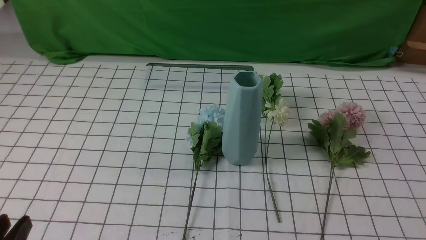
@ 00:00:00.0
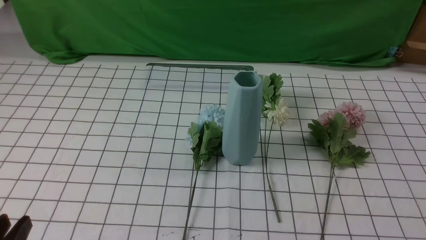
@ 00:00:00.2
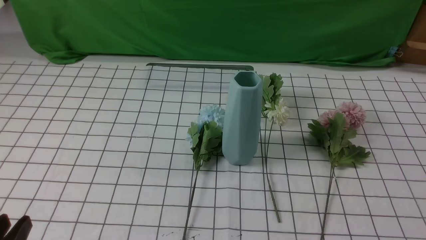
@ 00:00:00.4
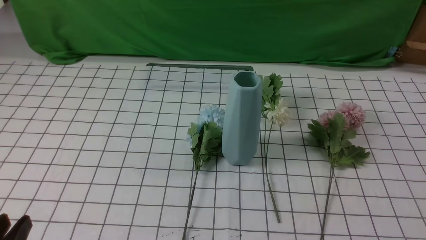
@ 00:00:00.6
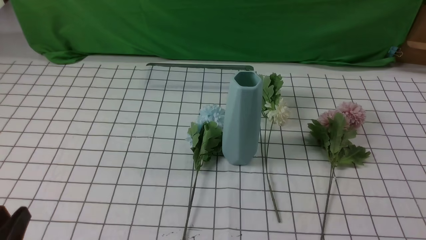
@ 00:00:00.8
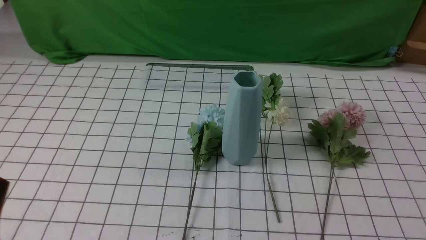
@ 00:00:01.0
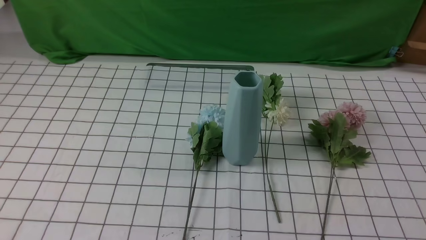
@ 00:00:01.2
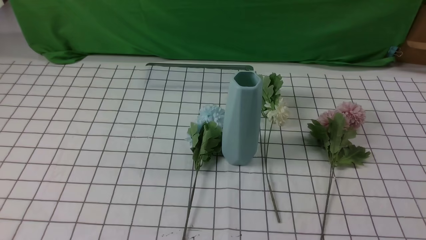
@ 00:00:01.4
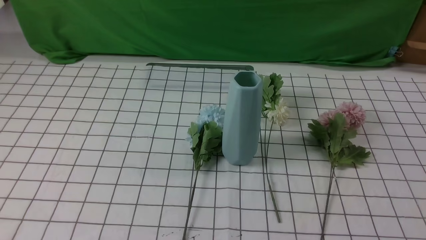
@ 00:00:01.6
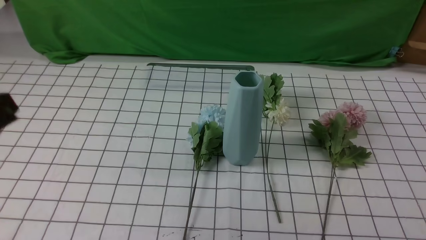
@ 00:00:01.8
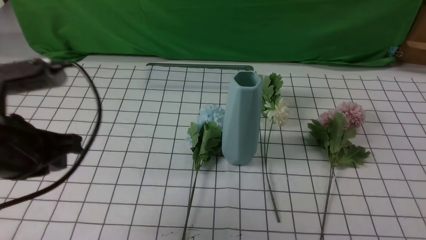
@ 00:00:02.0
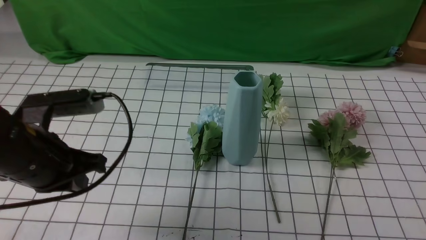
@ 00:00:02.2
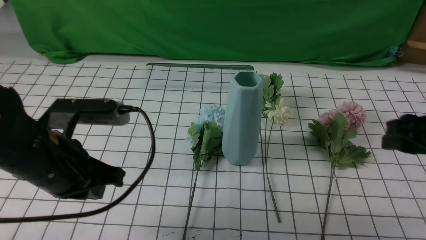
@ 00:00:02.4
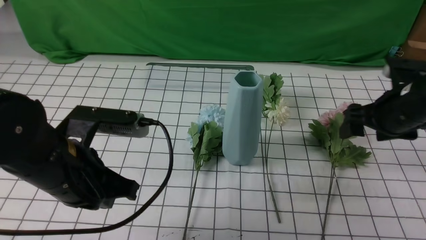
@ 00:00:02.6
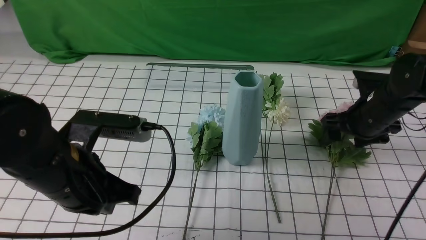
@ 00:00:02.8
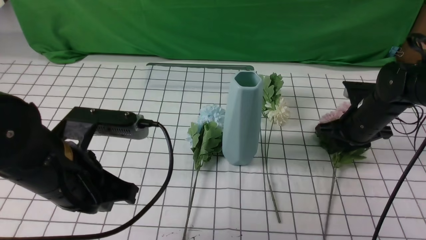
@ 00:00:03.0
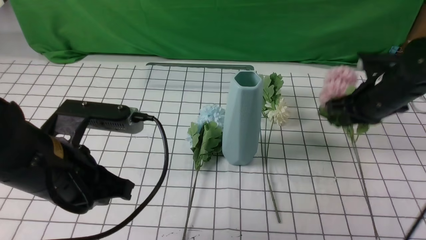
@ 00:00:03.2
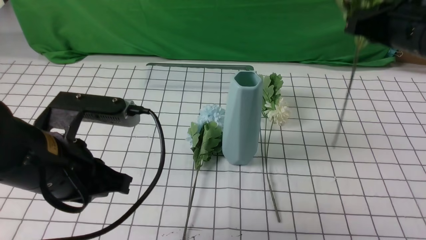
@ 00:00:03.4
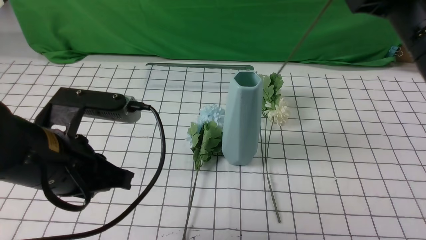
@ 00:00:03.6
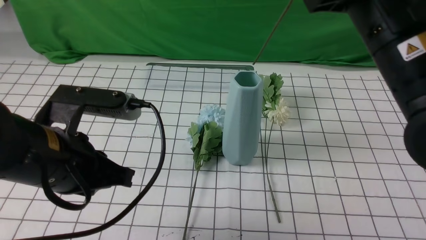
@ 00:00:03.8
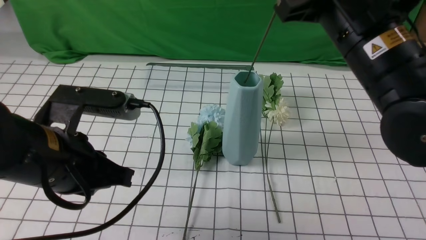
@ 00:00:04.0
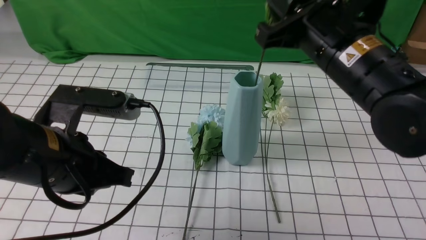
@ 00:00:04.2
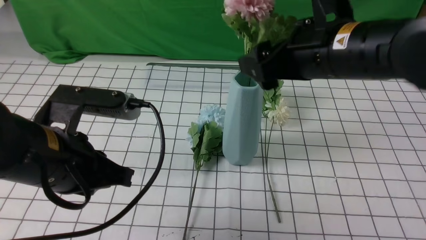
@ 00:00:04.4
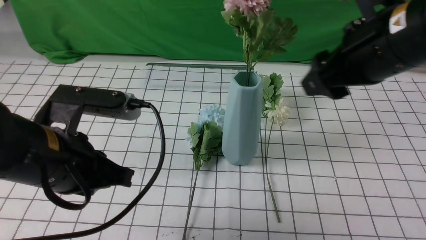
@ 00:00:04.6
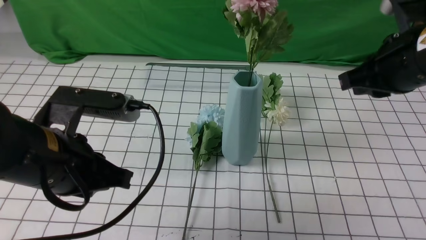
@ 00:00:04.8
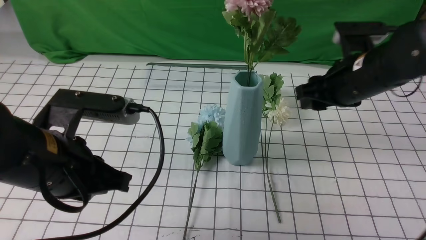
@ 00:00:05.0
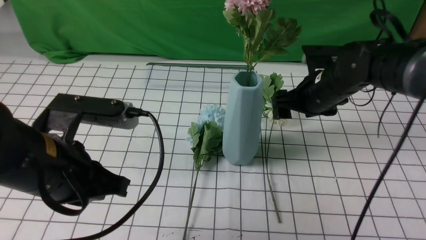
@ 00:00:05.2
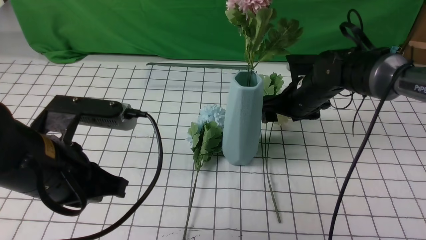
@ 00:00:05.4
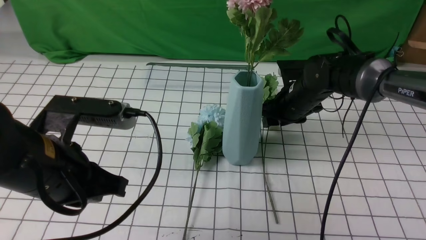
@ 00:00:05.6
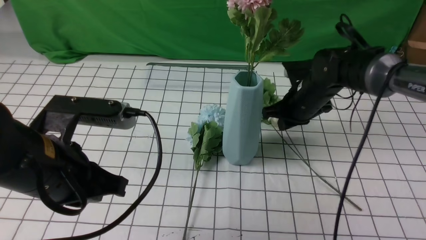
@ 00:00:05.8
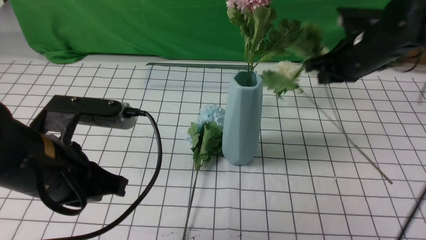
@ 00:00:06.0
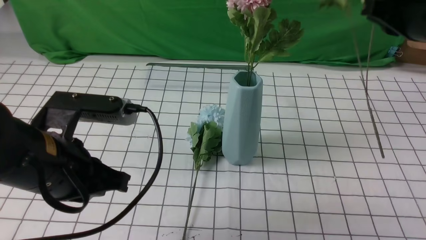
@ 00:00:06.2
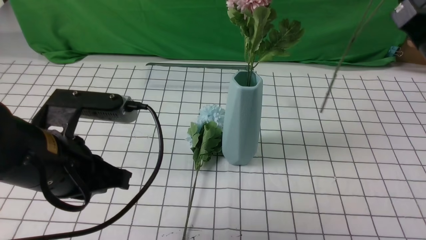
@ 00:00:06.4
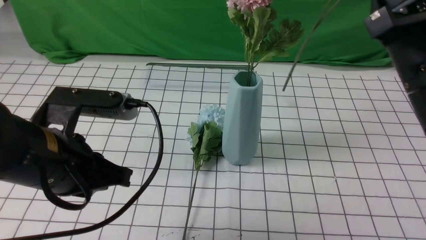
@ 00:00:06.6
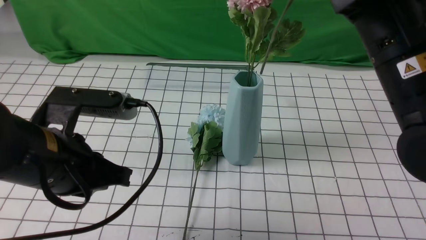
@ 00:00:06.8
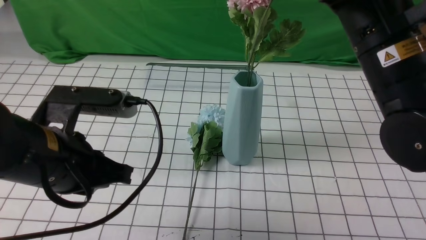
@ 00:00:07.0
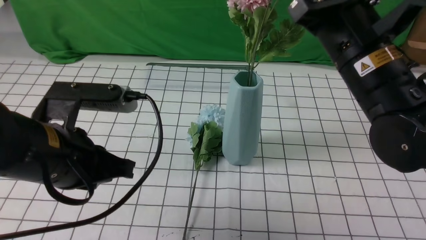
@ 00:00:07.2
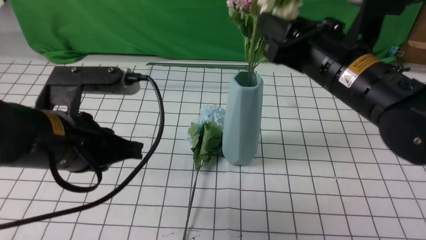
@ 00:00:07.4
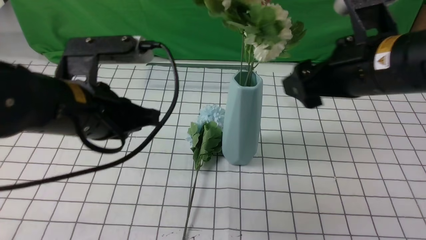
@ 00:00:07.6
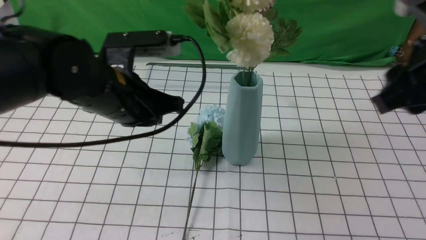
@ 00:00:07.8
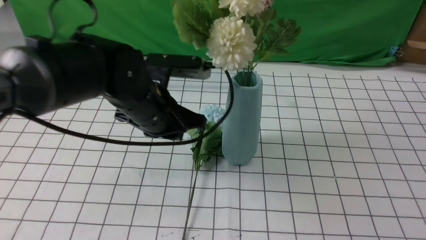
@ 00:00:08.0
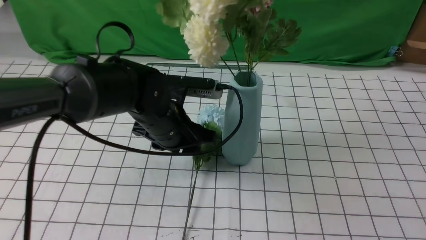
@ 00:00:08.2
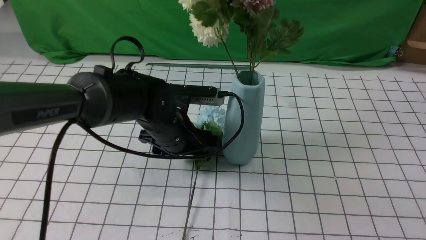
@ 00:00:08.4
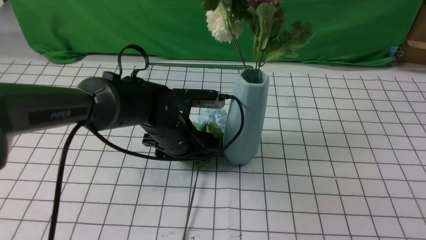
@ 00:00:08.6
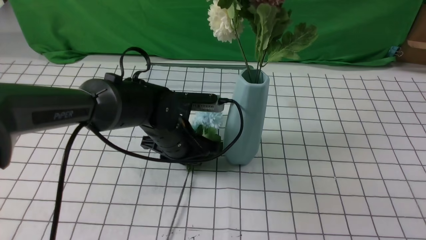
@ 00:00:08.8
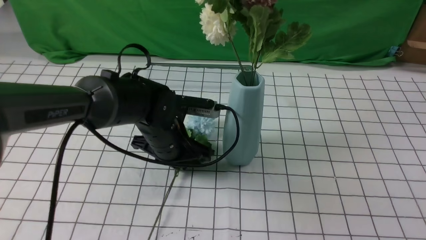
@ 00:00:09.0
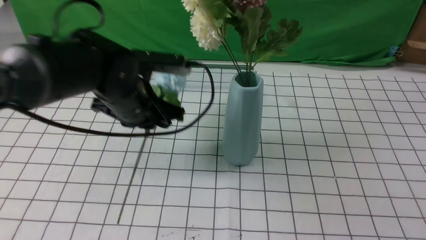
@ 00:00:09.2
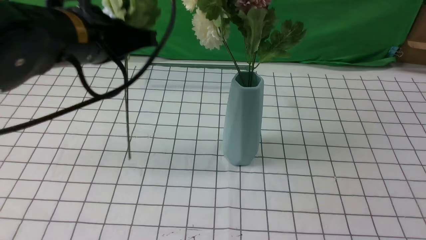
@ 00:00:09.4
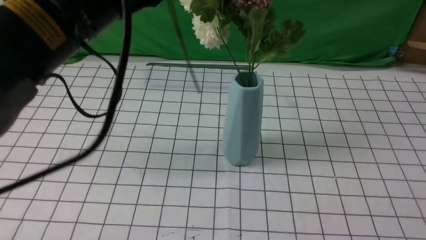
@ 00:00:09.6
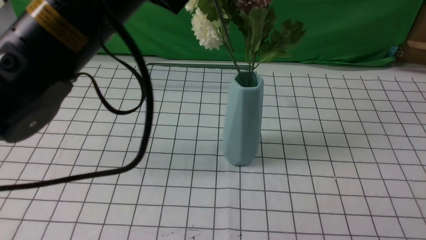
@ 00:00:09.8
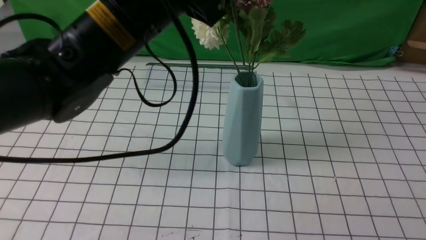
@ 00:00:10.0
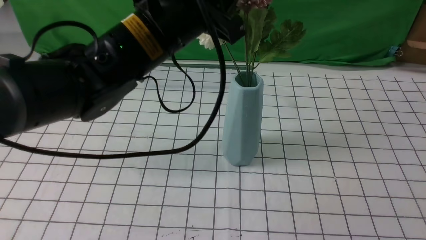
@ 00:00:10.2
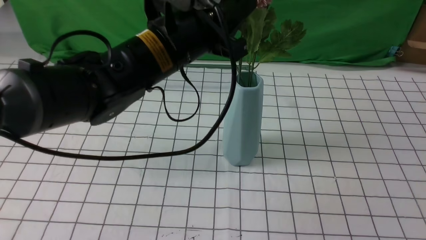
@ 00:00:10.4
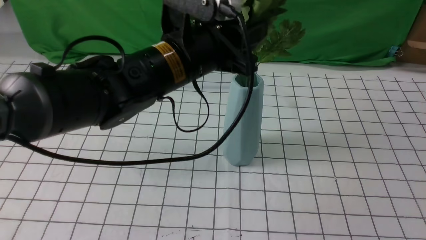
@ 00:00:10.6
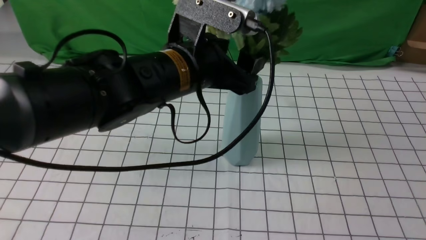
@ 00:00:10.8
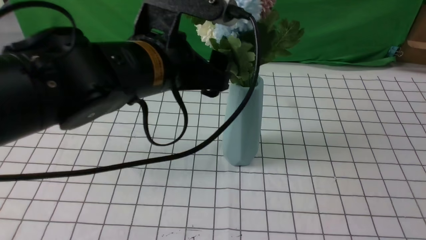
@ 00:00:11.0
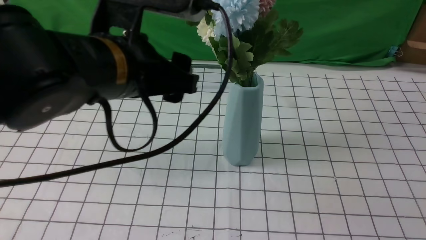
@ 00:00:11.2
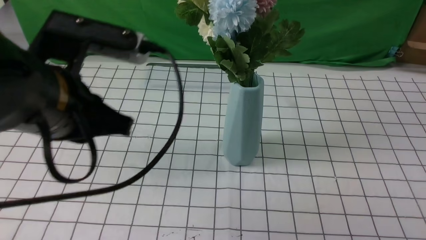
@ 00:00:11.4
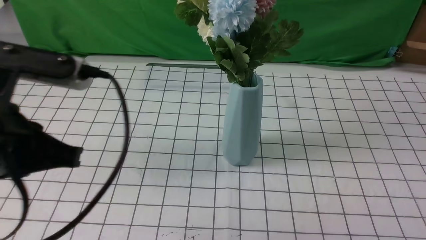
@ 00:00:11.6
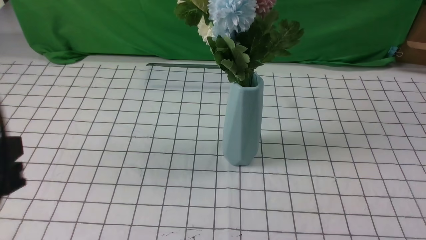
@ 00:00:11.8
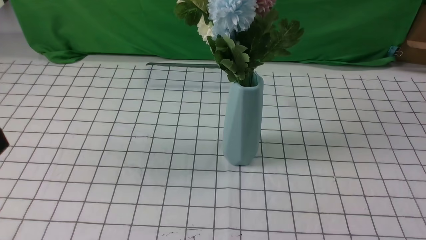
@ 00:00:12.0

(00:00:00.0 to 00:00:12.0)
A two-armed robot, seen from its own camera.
Task of the whole recording: insert the flowers into the vase on the table with the white tablecloth.
Step, 00:00:00.0 - 00:00:03.0: use the right arm to grab a bunch of fresh flowers.
Step, 00:00:03.2 - 00:00:04.6: use the right arm to insert the flowers into the vase.
Step, 00:00:04.8 - 00:00:05.6: use the right arm to grab a bunch of fresh flowers.
Step, 00:00:06.0 - 00:00:07.6: use the right arm to insert the flowers into the vase.
Step, 00:00:07.8 - 00:00:08.8: use the left arm to grab a bunch of fresh flowers.
Step, 00:00:09.0 - 00:00:11.0: use the left arm to insert the flowers into the vase.
00:00:00.0 - 00:00:01.6: The left gripper shifts some 15 cm upward.
00:00:01.6 - 00:00:03.0: The right gripper shifts about 35 cm forward, and opens, then closes once more; the left gripper heads forward, to the right and downward, covering approximately 15 cm.
00:00:03.0 - 00:00:04.4: The right gripper is displaced upward, to the left and backward by approximately 25 cm, and closes, then opens again.
00:00:04.4 - 00:00:06.0: The right gripper travels forward and to the right by approximately 15 cm, reaches roughly 20 cm downward, then returns, and closes.
00:00:06.0 - 00:00:07.6: The left gripper heads forward, covering about 5 cm. Meanwhile the right gripper heads backward, to the left and upward, covering some 15 cm, and opens its fingers.
00:00:07.6 - 00:00:09.0: The right gripper goes roughly 15 cm to the right and backward, and closes. The left gripper moves downward, forward and to the right, approximately 15 cm, and opens, then closes once more.
00:00:09.0 - 00:00:10.4: The left gripper is displaced upward by roughly 15 cm.
00:00:10.4 - 00:00:12.0: The right gripper moves backward, approximately 20 cm. The left gripper moves backward and to the left, some 30 cm, and opens, then closes once more.

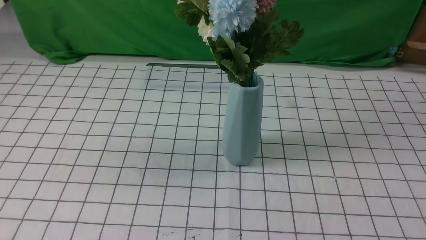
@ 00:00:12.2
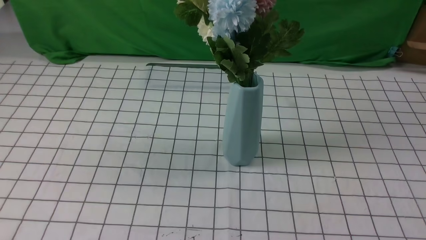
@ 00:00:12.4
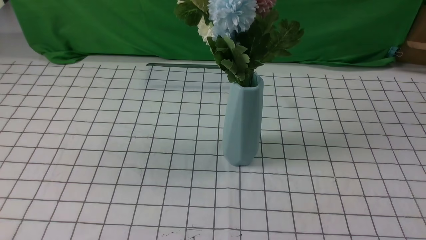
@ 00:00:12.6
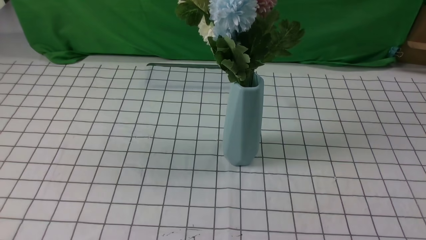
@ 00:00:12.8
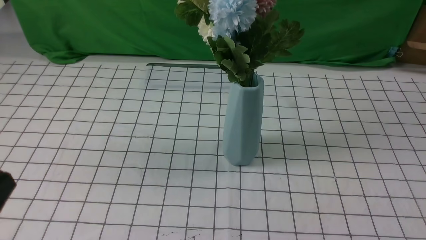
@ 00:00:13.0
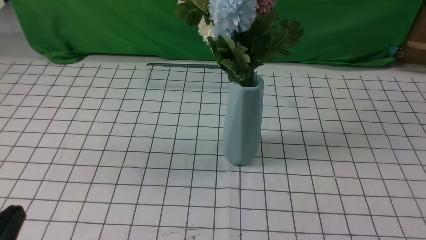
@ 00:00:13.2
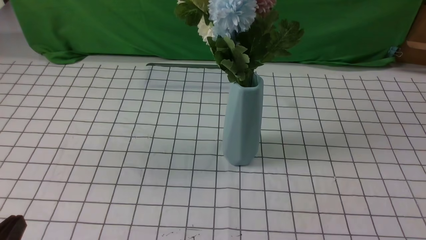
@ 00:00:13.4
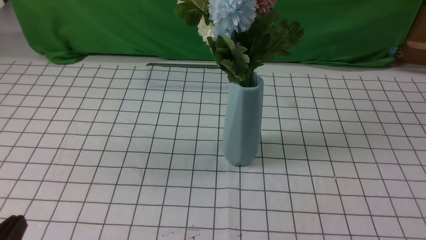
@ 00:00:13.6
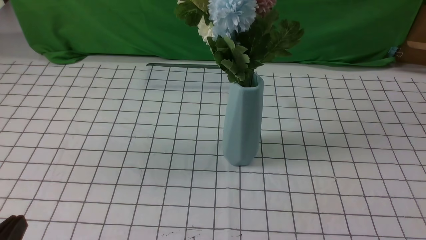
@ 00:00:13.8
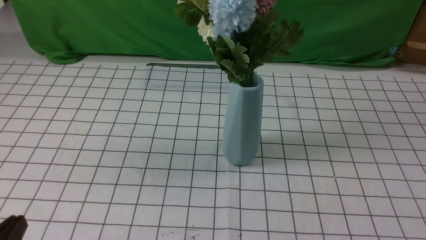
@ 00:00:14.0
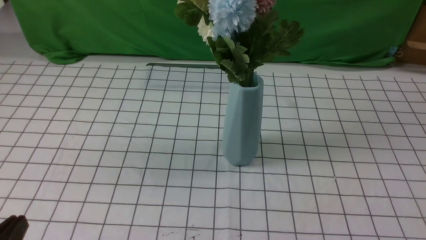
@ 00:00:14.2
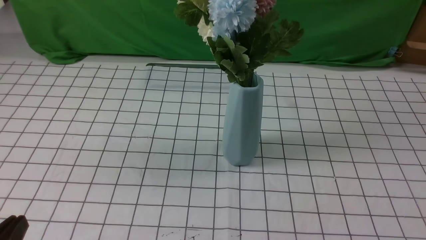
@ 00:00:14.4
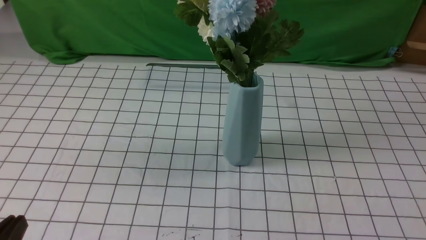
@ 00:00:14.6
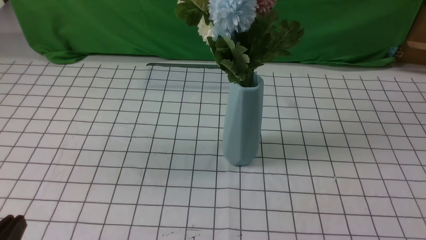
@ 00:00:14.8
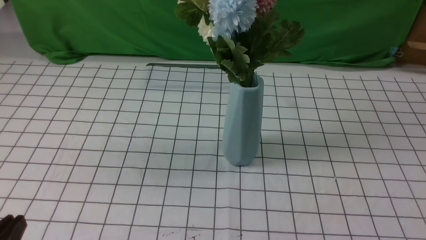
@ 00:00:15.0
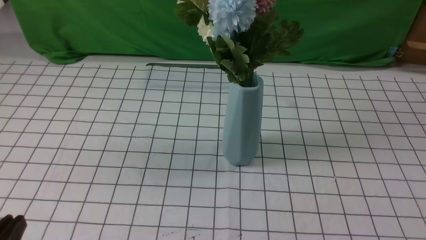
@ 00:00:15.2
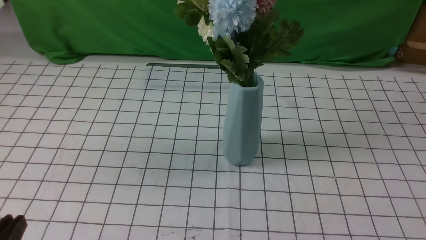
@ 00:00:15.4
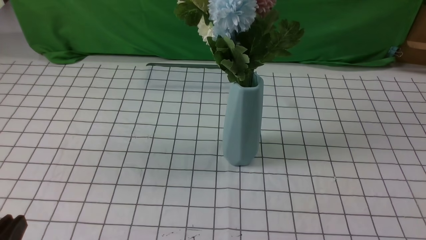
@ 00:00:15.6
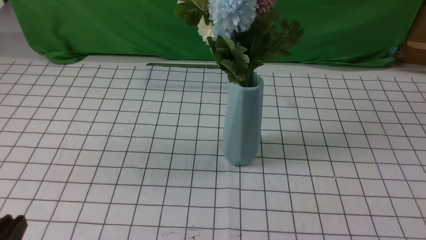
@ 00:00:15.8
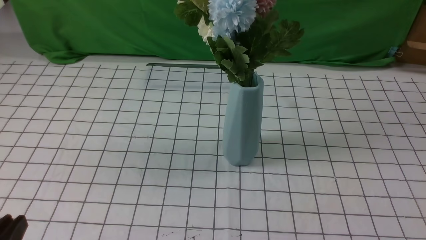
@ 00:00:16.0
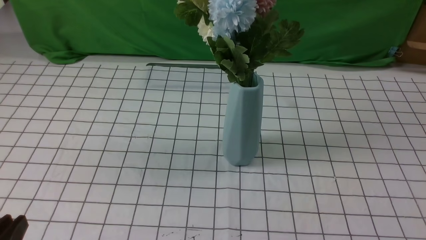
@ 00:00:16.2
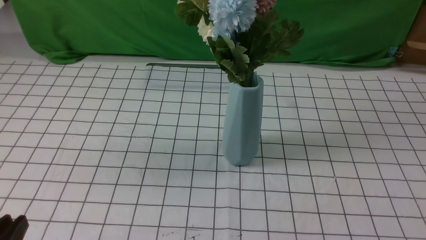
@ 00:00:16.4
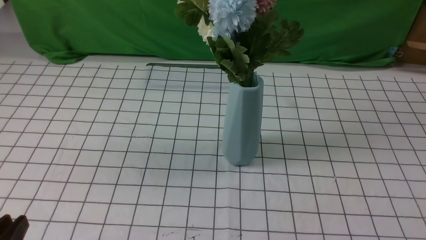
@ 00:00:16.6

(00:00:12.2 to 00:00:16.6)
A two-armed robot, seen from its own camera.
Task of the whole recording: insert the flowers into the vase on the table with the white tablecloth.
00:00:15.2 - 00:00:16.6: Neither gripper changes place.
